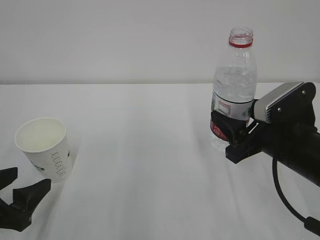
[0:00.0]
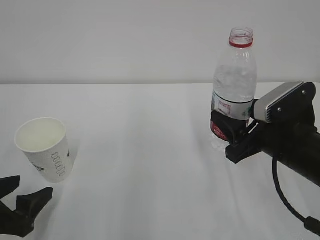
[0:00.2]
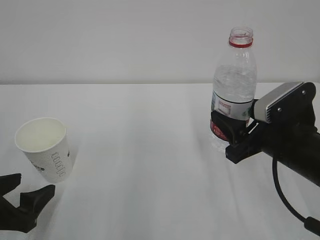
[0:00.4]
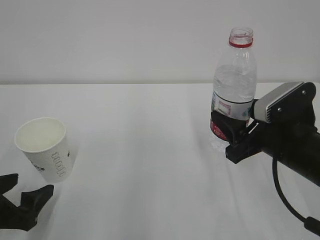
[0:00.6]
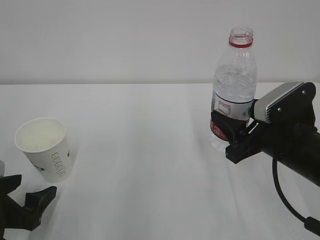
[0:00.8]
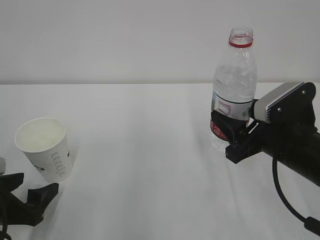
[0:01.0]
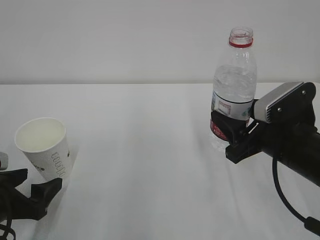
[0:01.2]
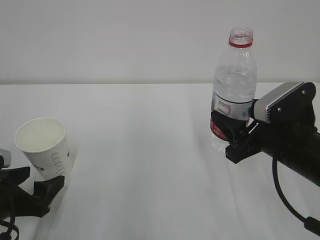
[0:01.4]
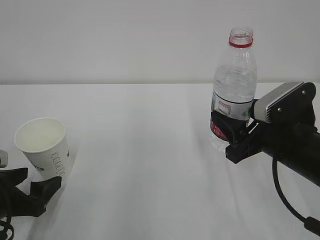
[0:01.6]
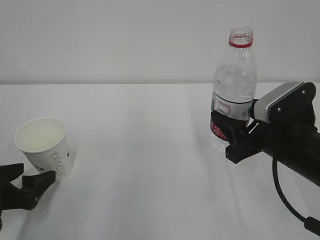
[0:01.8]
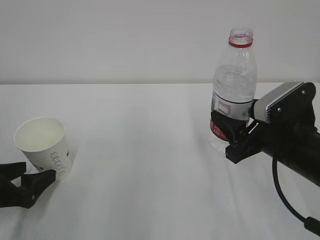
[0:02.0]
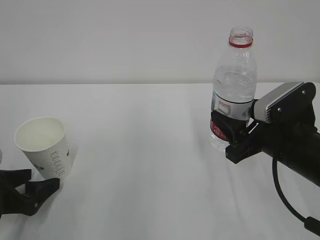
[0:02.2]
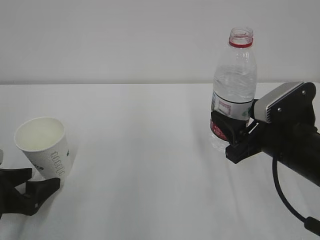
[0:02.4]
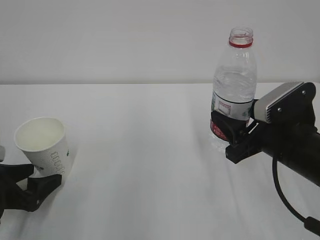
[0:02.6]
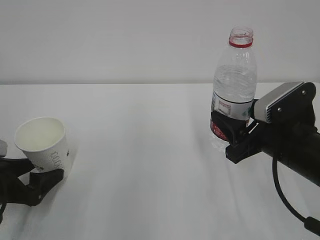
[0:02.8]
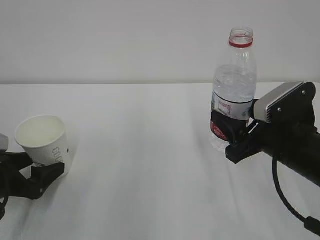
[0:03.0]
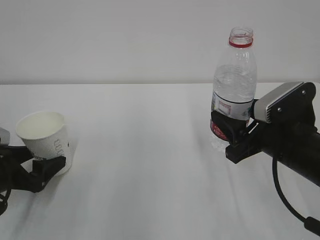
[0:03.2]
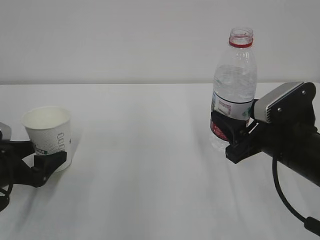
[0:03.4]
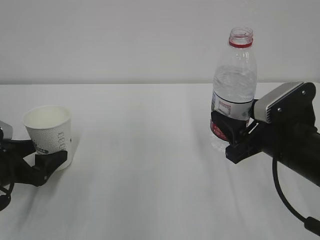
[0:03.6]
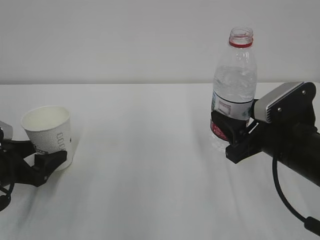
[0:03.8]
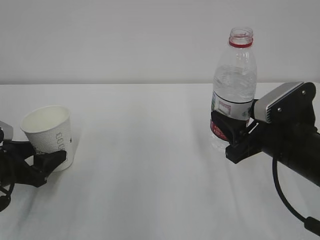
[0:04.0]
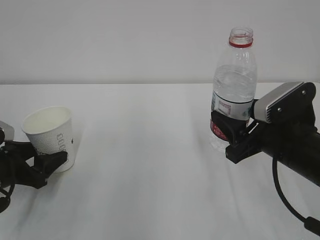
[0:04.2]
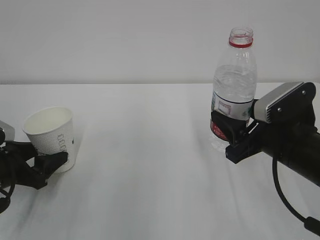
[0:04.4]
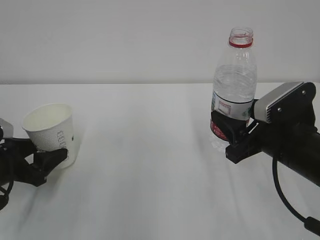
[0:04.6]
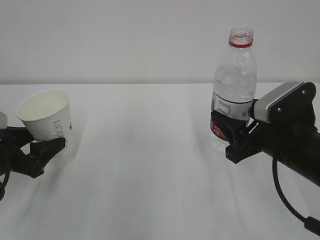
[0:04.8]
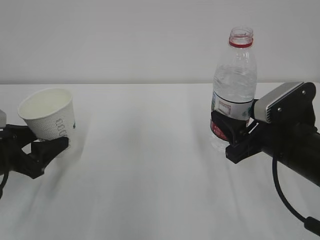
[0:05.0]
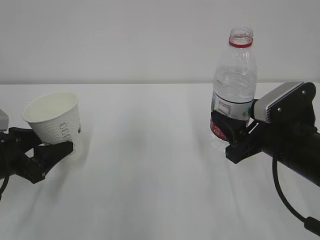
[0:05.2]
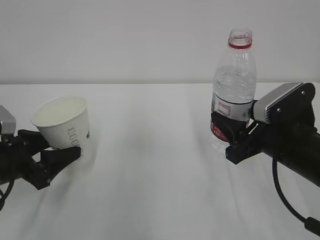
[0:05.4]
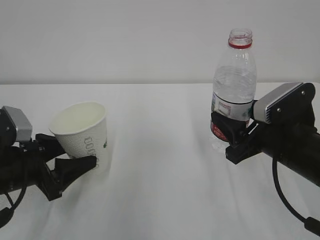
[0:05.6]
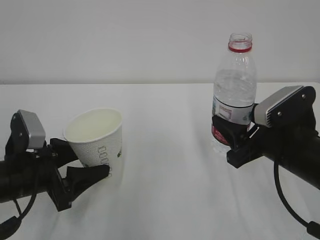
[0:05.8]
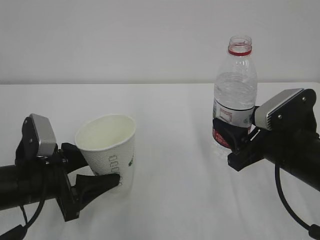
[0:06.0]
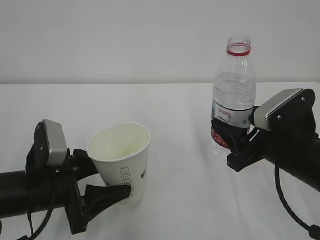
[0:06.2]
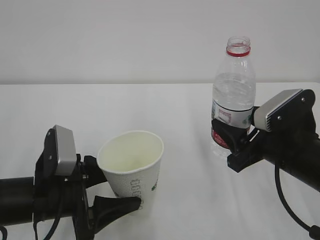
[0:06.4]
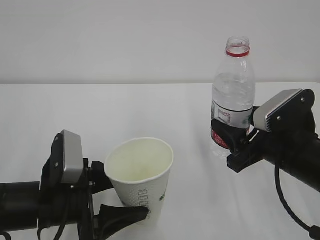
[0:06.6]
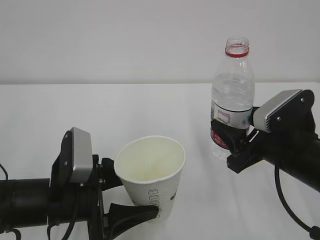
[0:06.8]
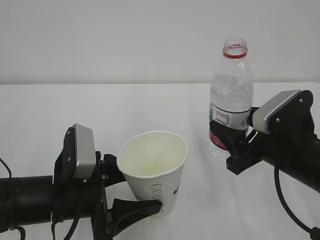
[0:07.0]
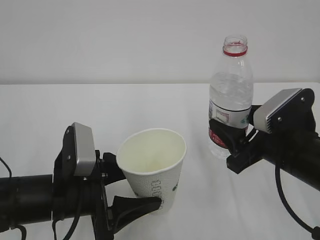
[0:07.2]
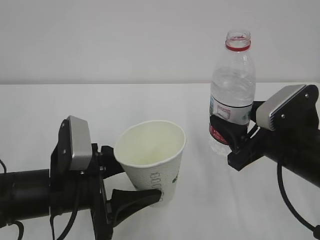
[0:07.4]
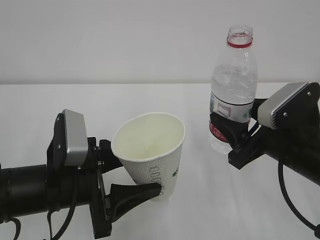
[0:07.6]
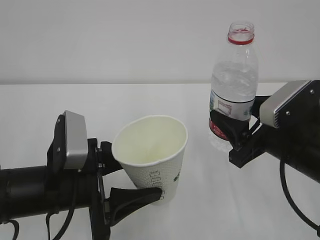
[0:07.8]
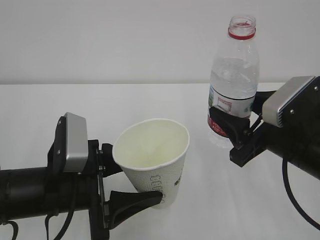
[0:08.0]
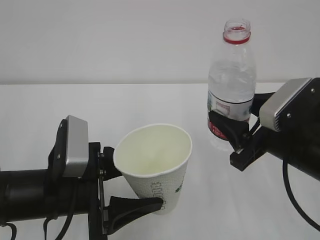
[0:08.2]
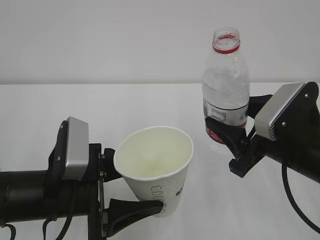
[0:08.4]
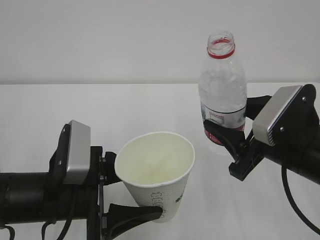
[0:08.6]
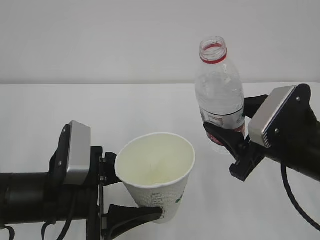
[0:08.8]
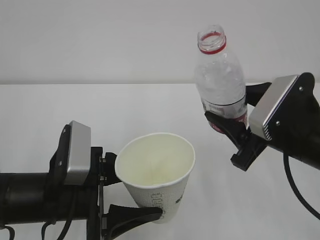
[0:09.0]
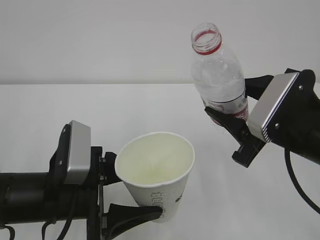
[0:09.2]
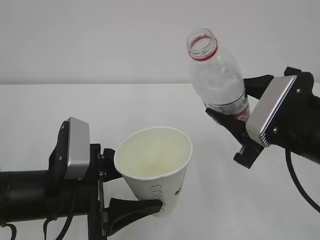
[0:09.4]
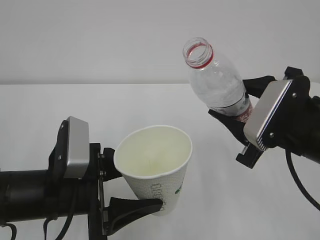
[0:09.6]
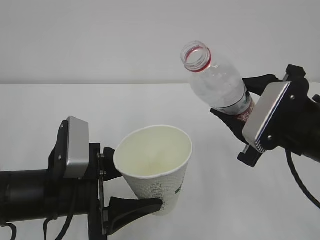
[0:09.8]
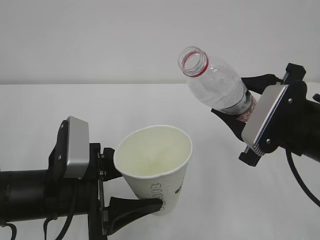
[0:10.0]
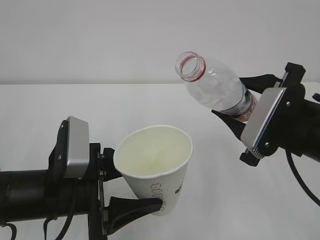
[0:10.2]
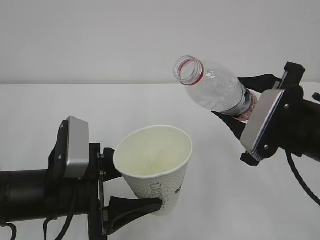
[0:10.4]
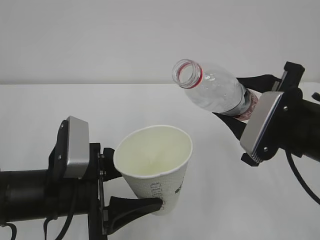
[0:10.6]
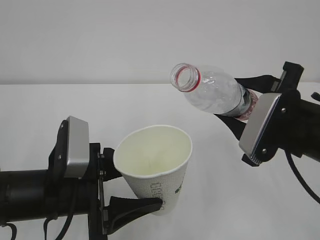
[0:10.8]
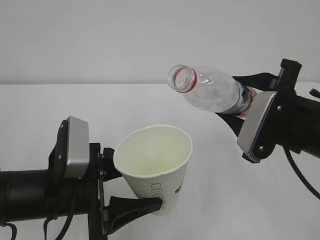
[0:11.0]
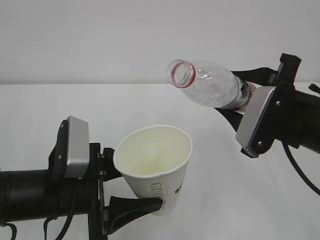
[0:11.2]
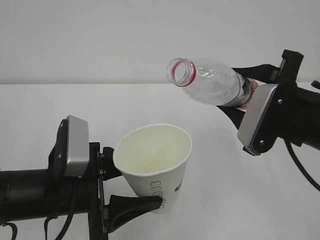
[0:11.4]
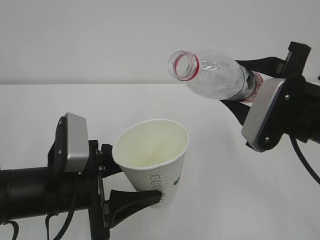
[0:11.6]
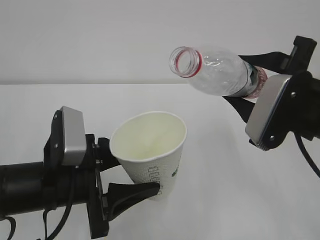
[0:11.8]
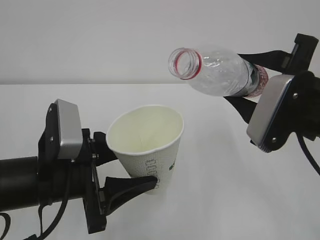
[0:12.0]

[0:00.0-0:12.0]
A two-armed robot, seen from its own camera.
0:00.0 to 0:01.6: The grippers move only a little.
0:01.6 to 0:03.0: The grippers move only a little.
0:03.0 to 0:04.4: The left gripper closes up.
0:04.4 to 0:06.0: The left gripper heads to the right, covering approximately 10 cm.
0:06.0 to 0:07.6: The left gripper shifts approximately 5 cm to the right.
0:07.6 to 0:09.0: The grippers make only small movements.

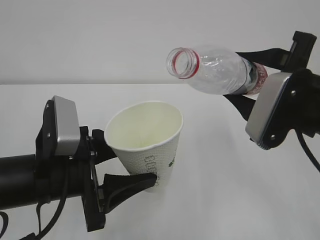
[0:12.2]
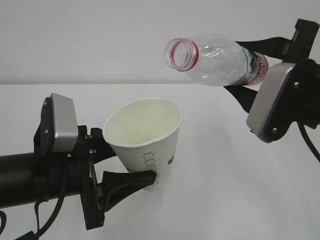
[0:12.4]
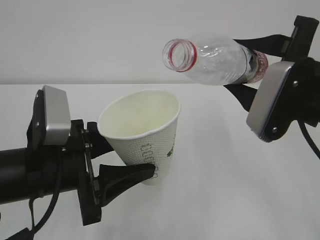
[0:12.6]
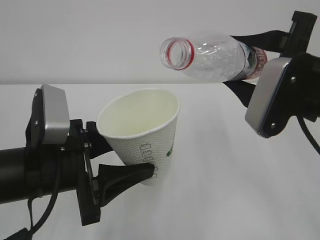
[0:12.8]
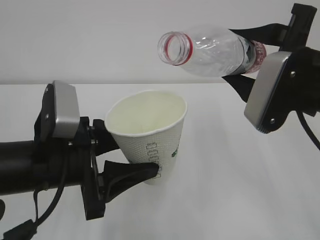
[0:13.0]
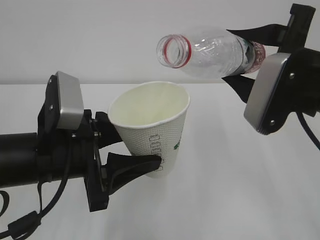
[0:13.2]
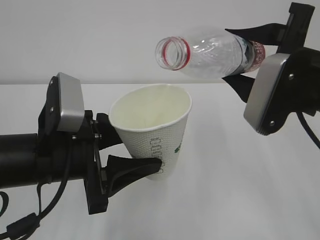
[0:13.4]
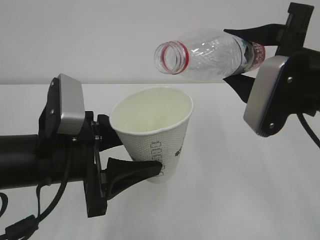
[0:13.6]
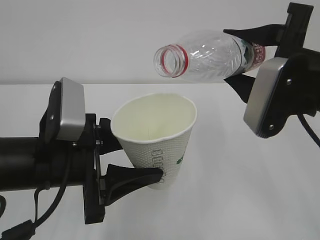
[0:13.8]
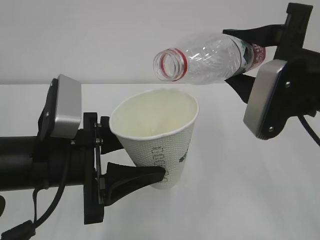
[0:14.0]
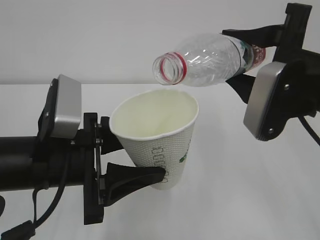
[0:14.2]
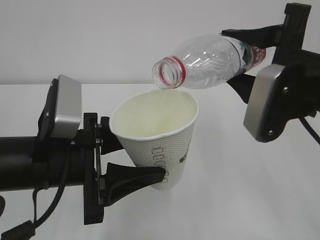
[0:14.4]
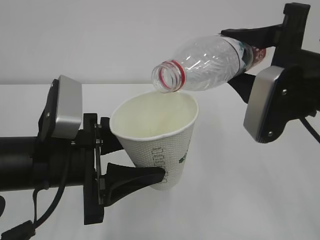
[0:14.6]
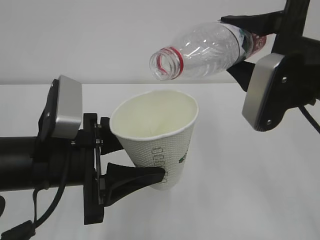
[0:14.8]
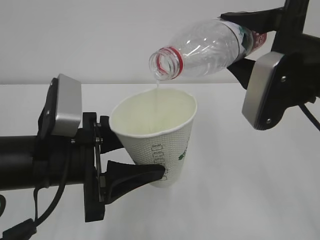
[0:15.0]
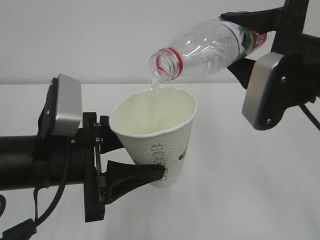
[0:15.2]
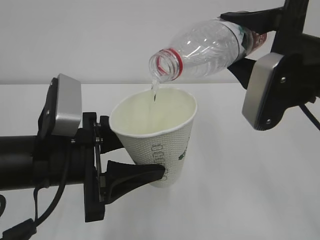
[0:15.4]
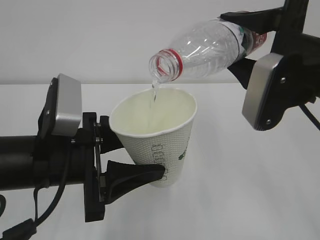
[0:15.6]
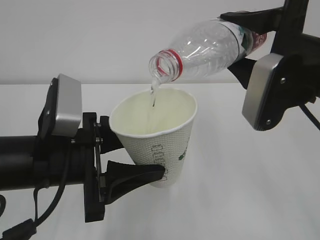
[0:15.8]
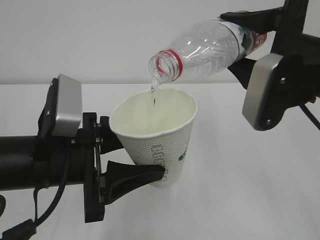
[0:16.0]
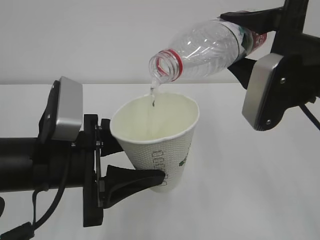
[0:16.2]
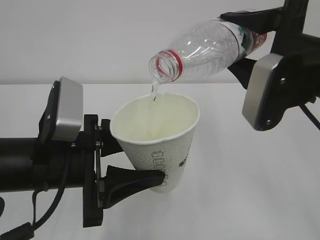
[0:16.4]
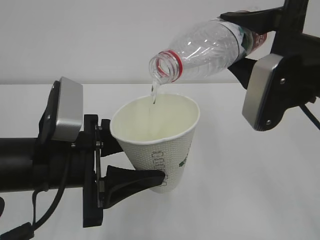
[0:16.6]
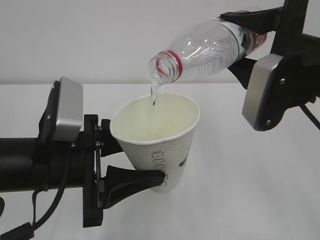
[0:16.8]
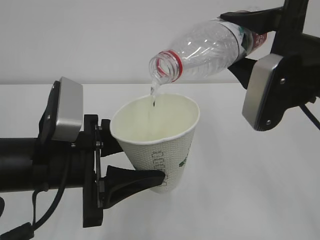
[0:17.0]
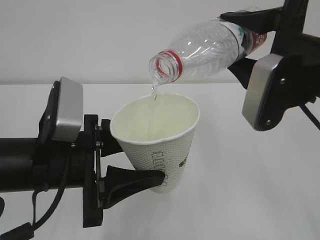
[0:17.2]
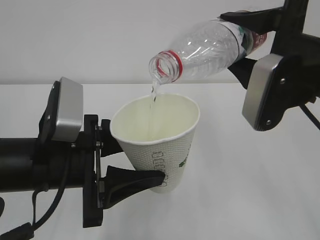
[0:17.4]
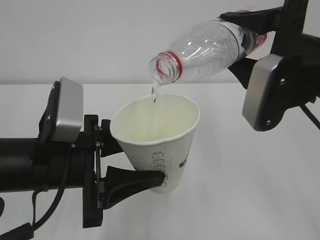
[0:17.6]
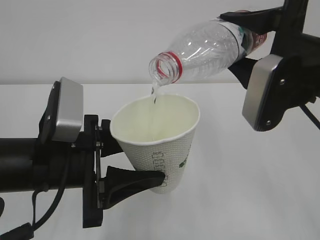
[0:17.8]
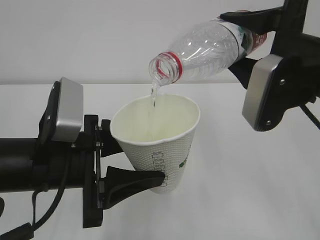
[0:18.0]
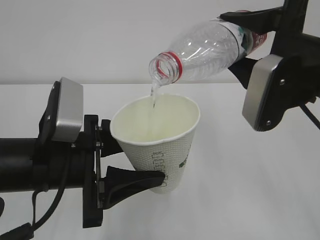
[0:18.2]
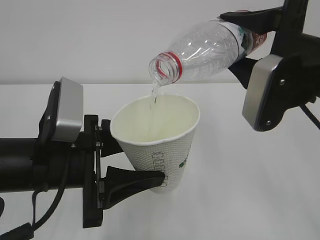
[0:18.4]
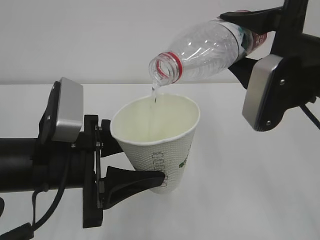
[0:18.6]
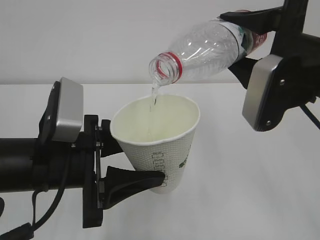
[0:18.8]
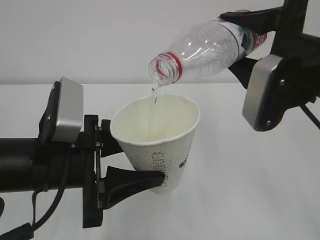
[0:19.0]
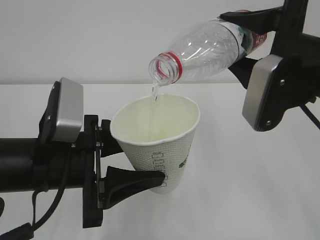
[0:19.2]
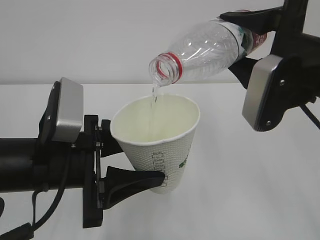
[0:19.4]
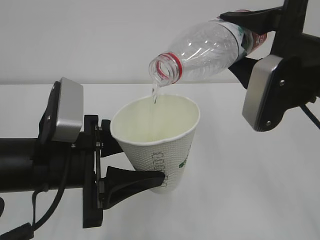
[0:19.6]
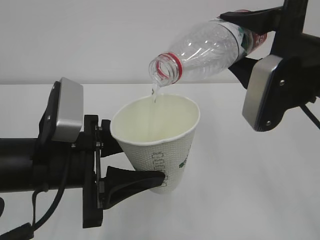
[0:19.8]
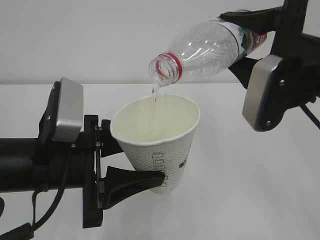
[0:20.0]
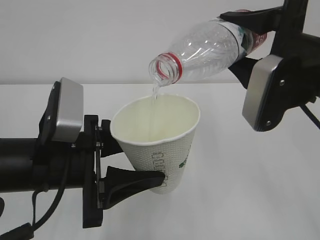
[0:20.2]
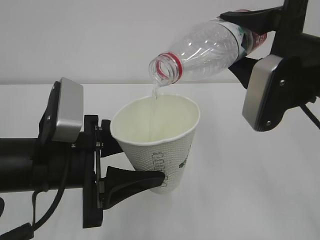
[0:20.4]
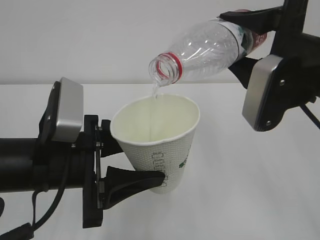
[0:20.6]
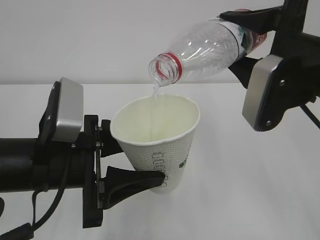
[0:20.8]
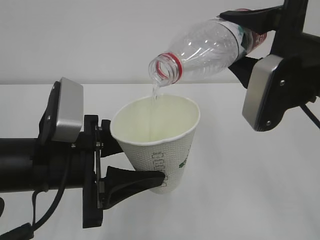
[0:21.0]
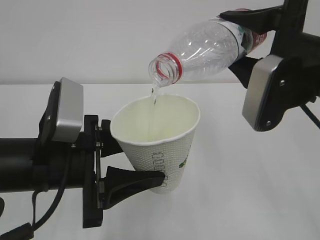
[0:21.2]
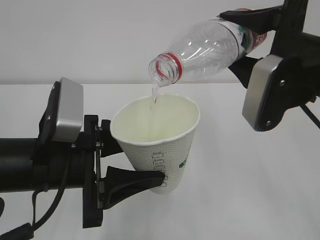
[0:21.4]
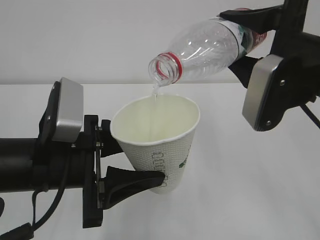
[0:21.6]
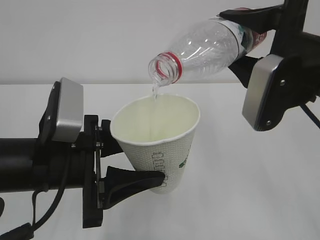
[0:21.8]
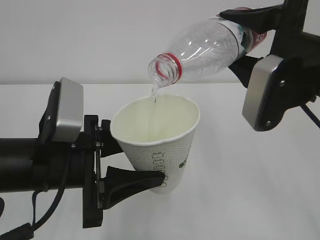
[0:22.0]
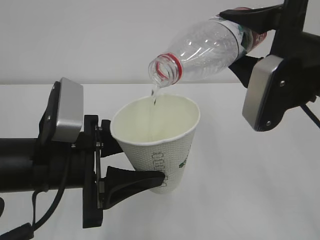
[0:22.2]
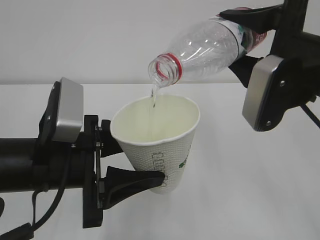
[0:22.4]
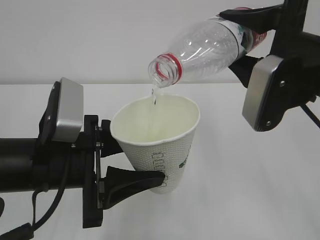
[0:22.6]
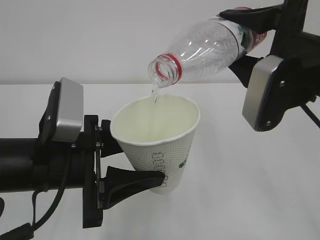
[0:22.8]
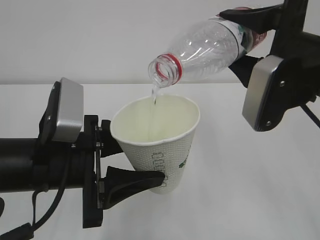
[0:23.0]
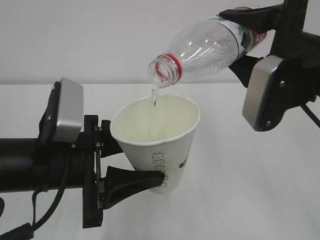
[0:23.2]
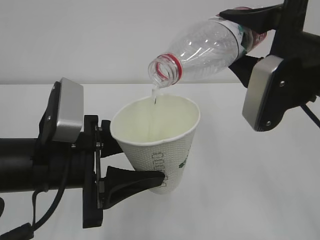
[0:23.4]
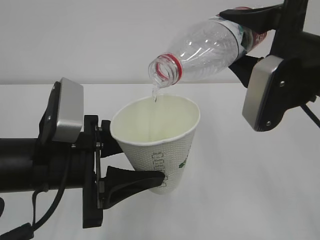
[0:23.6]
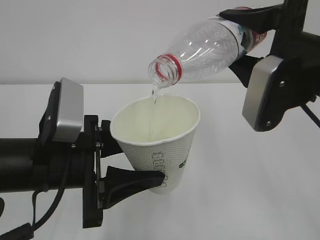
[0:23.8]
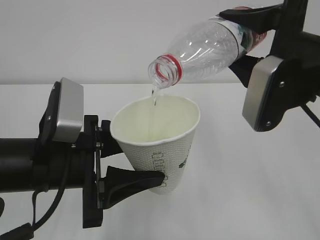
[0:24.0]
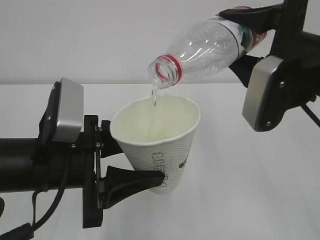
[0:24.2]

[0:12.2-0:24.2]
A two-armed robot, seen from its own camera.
0:13.8 to 0:15.2: The grippers stay close to where they were, moving slightly.
0:15.2 to 0:24.2: The two grippers keep their place.
